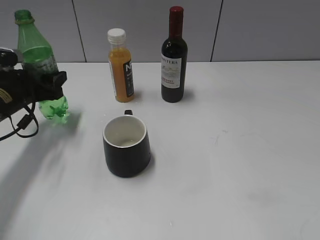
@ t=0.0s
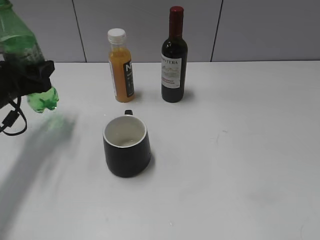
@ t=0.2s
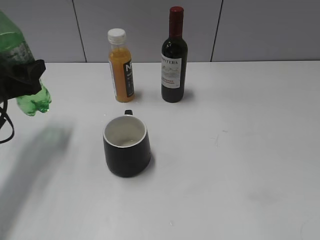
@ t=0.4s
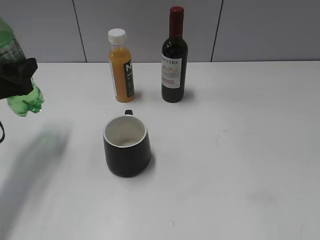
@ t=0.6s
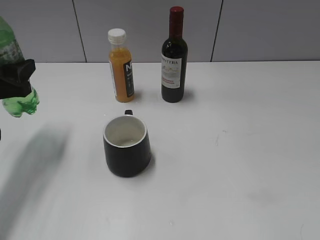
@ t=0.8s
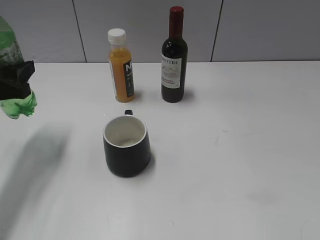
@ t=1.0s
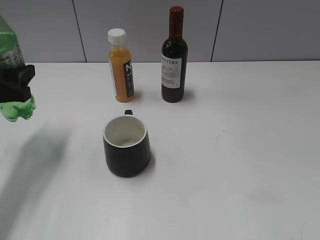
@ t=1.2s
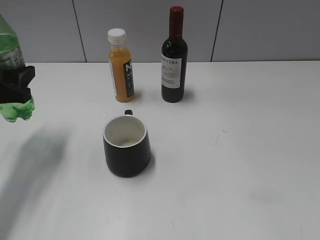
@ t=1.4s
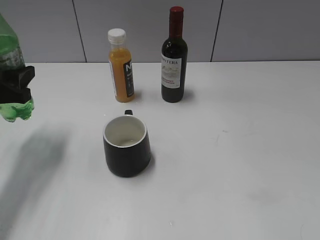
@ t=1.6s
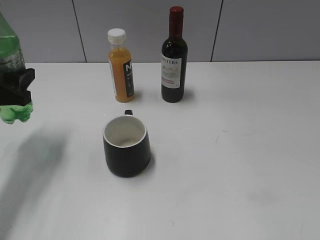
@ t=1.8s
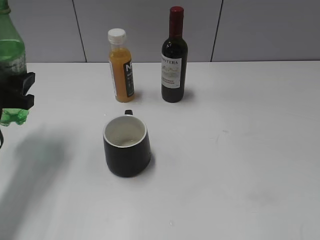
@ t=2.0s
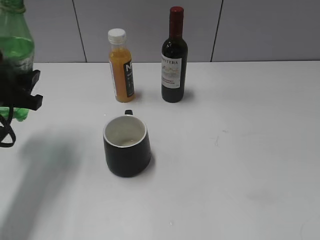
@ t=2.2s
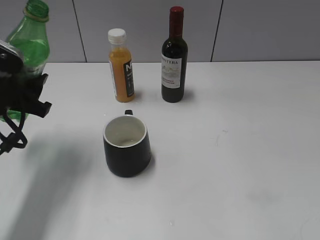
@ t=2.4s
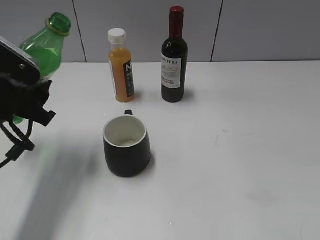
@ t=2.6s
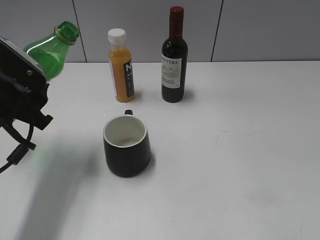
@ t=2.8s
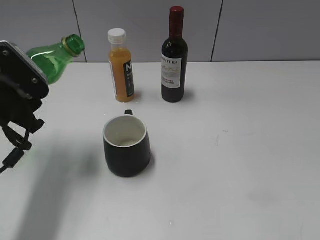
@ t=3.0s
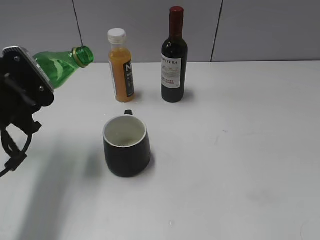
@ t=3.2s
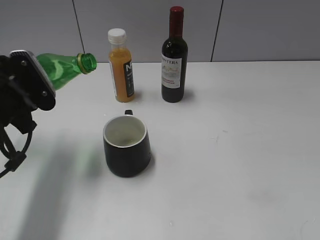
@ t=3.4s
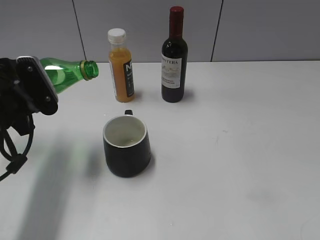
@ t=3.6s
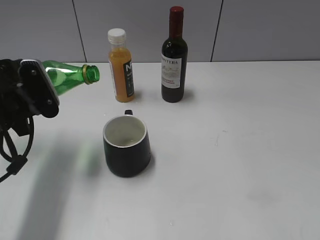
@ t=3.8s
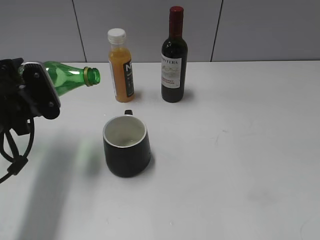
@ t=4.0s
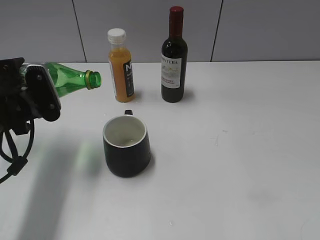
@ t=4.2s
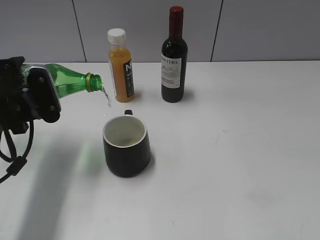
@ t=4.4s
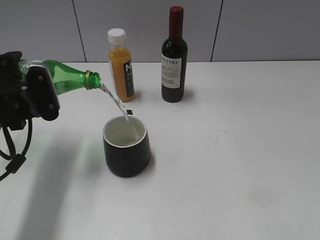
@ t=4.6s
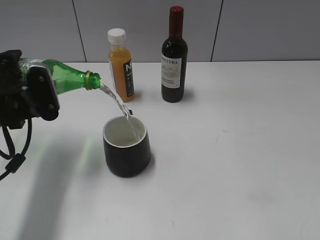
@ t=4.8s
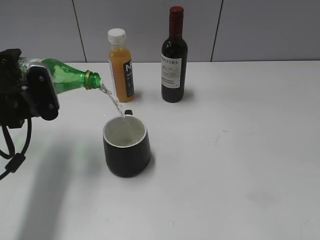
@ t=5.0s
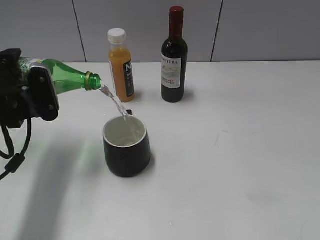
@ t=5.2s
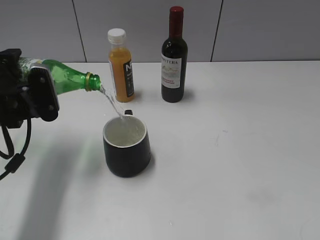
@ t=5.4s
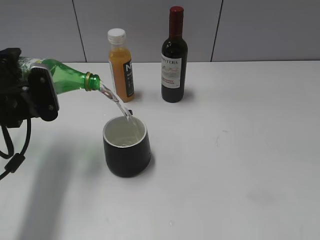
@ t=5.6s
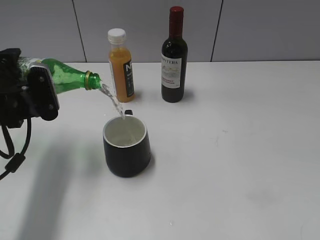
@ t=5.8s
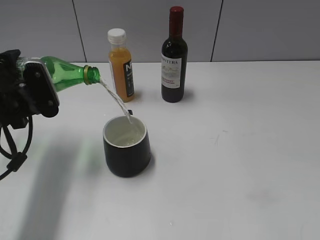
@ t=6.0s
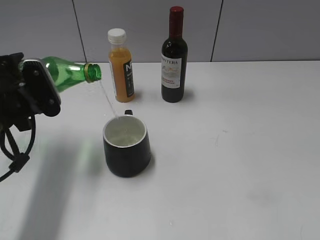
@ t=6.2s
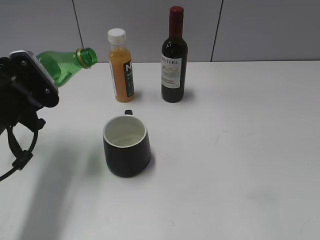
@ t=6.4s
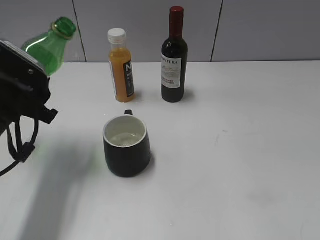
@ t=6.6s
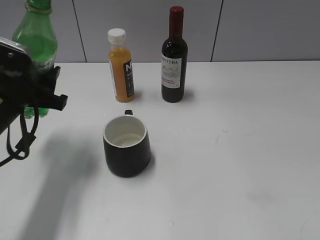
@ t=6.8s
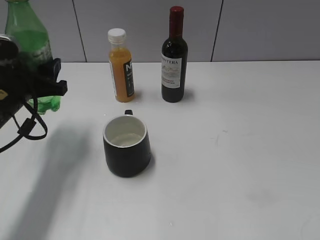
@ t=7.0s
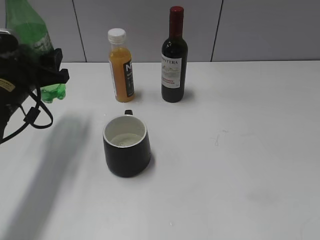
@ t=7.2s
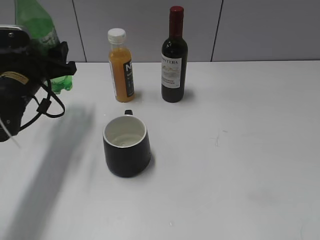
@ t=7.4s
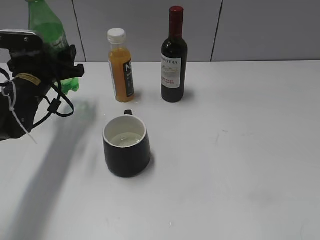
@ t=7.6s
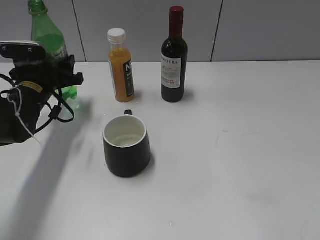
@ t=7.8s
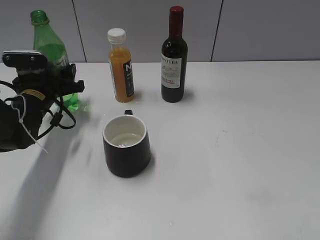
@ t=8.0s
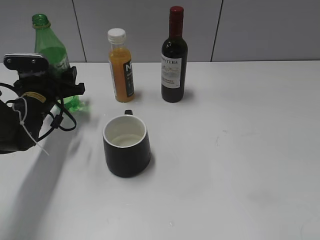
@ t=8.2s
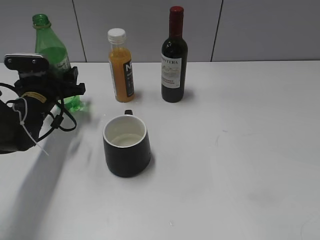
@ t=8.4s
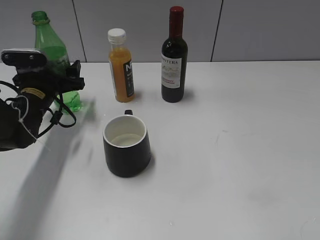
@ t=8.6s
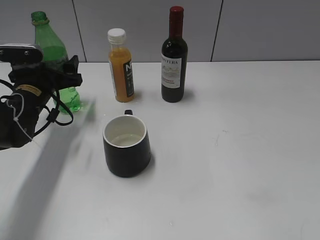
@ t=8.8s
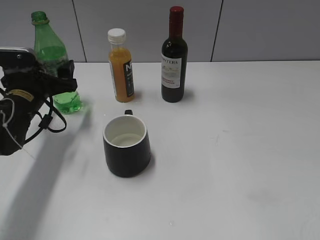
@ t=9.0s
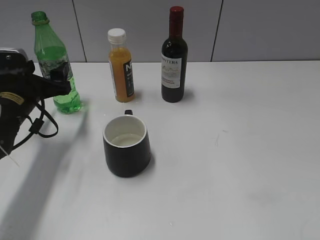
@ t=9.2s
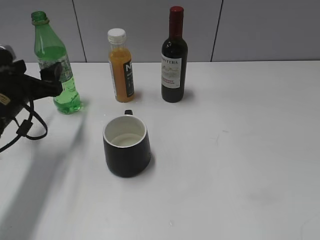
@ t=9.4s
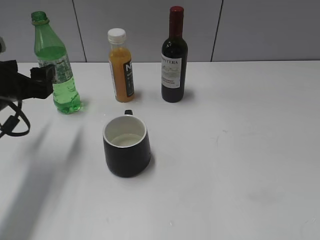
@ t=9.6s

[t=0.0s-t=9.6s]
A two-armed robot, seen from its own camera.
Step, t=0.0s to t=6.4s: Pour the sprite from bottle to cup with left gripper.
Step, t=6.6s to t=9.2s: Place the sprite bottle on the table with left gripper.
t=0.0s to t=1.6s: The left gripper moves backward and upward, approximately 10 cm.
t=1.6s to t=3.2s: The left gripper shifts some 5 cm to the right.
t=6.4s to t=8.0s: The left gripper goes roughly 15 cm forward and downward.
t=8.0s to t=9.6s: The left gripper goes some 10 cm backward and upward, and opens up.

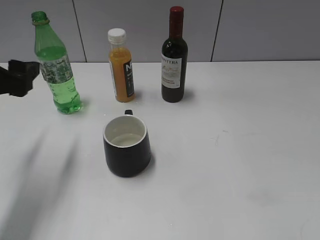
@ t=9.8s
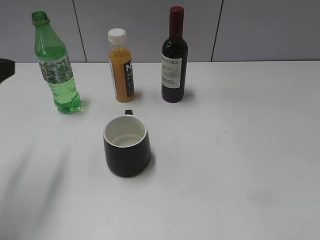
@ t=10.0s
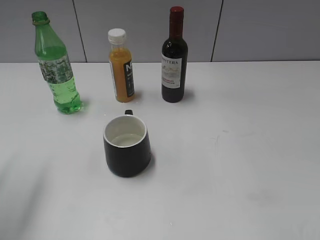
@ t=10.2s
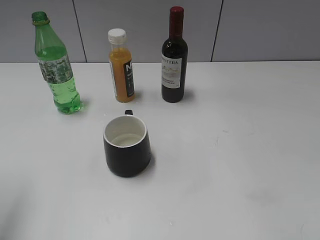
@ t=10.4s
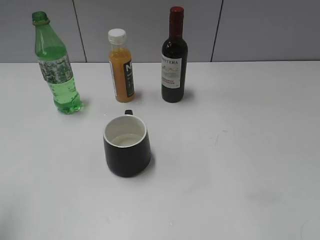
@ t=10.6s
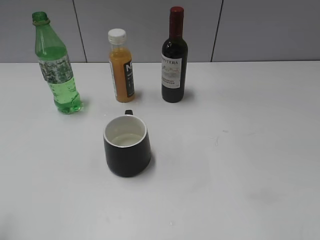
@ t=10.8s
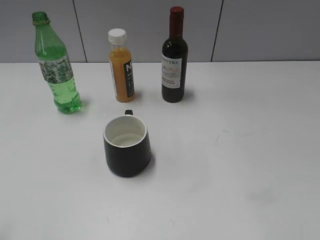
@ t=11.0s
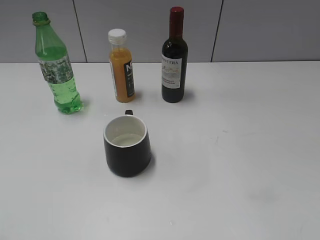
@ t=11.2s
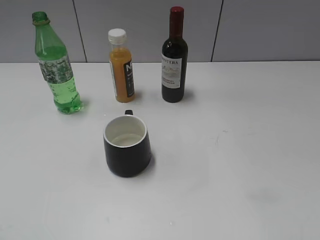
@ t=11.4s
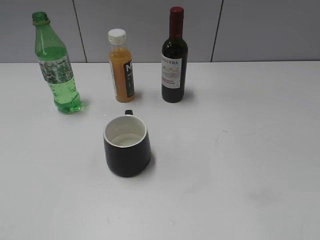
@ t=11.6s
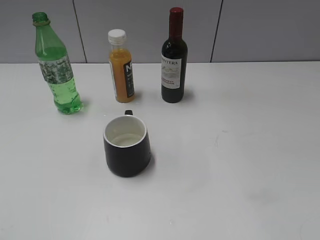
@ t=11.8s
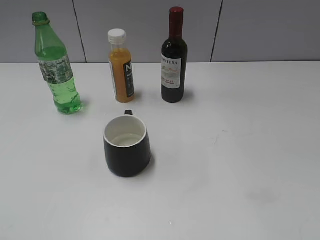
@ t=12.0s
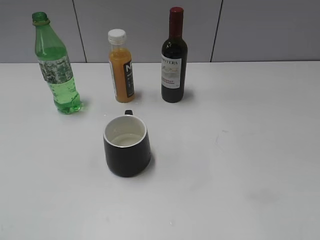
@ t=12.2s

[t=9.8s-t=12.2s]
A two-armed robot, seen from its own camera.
t=9.8s to t=11.0s: The left gripper goes about 20 cm backward and upward.

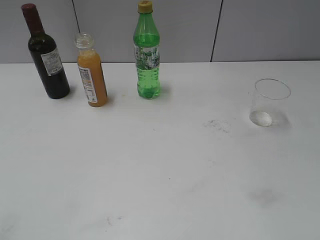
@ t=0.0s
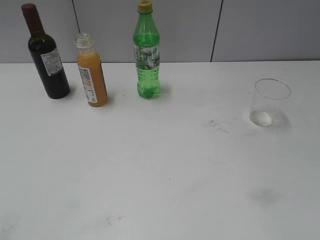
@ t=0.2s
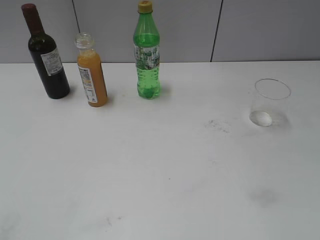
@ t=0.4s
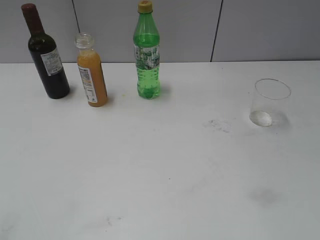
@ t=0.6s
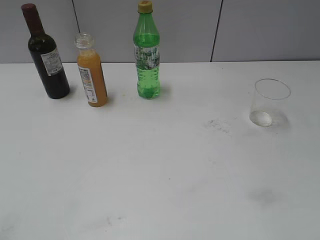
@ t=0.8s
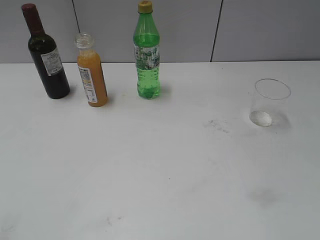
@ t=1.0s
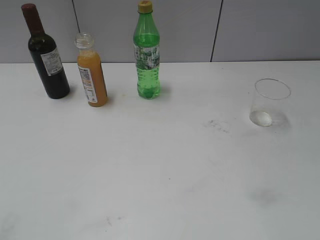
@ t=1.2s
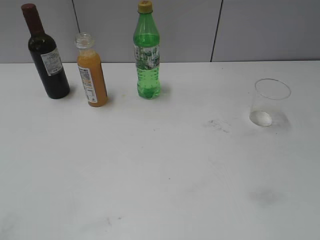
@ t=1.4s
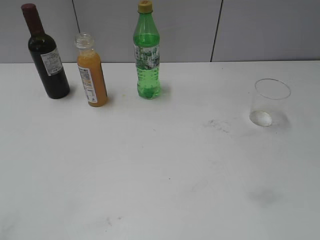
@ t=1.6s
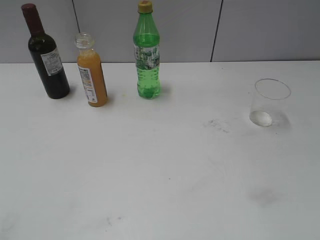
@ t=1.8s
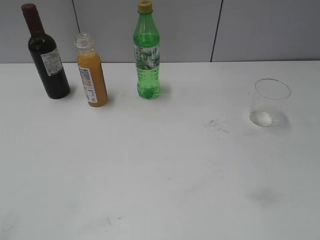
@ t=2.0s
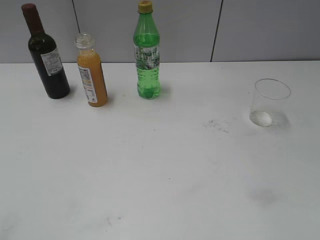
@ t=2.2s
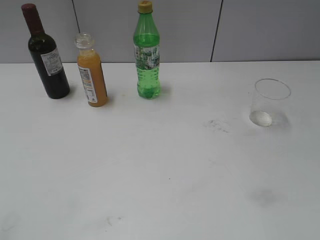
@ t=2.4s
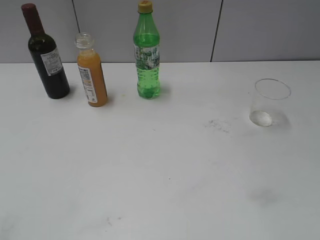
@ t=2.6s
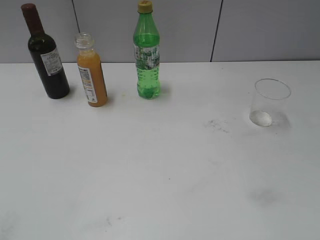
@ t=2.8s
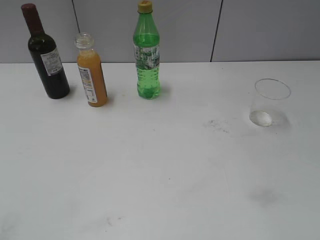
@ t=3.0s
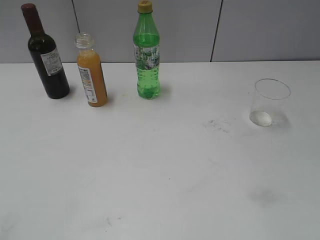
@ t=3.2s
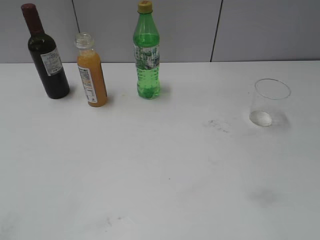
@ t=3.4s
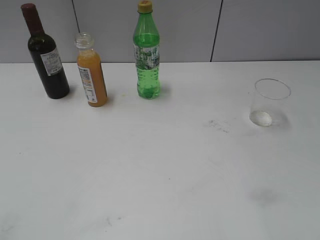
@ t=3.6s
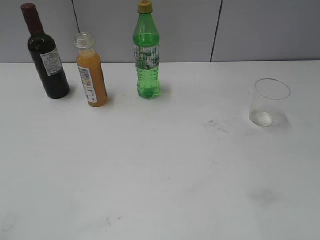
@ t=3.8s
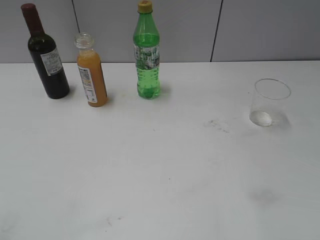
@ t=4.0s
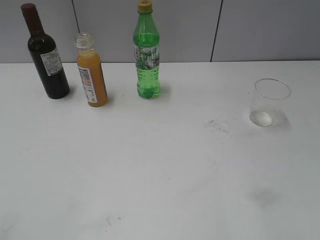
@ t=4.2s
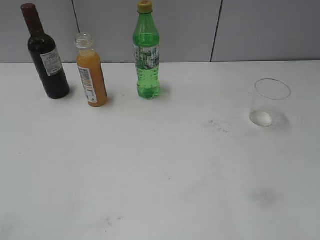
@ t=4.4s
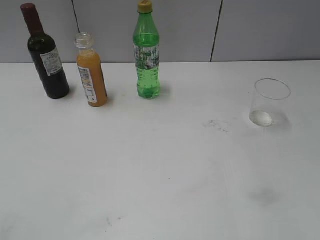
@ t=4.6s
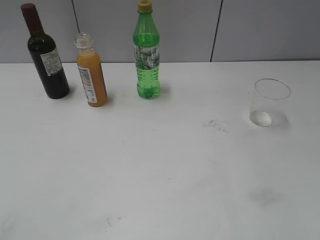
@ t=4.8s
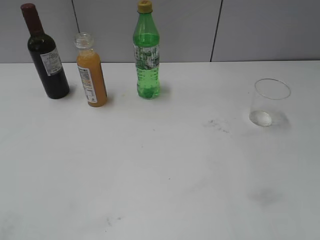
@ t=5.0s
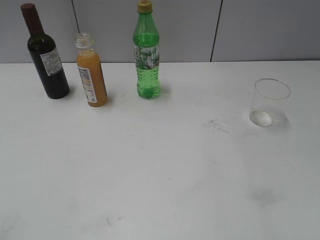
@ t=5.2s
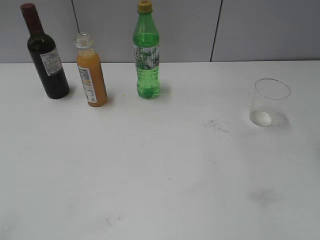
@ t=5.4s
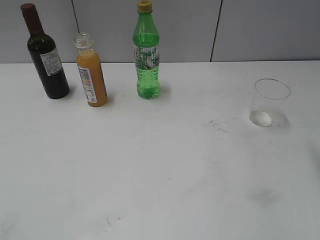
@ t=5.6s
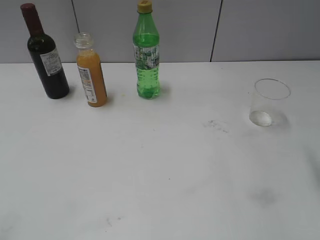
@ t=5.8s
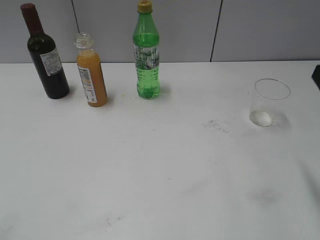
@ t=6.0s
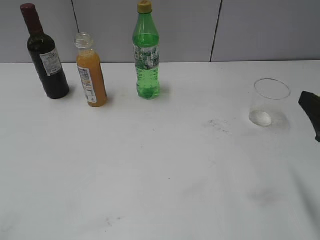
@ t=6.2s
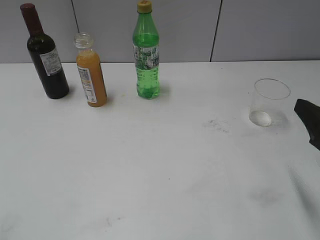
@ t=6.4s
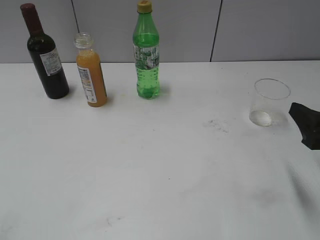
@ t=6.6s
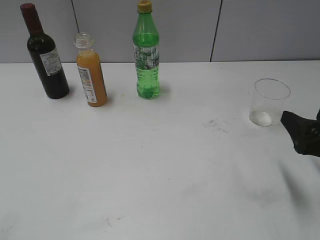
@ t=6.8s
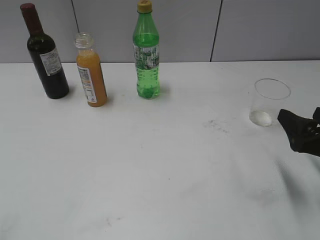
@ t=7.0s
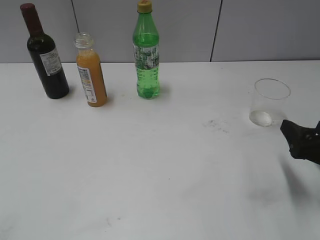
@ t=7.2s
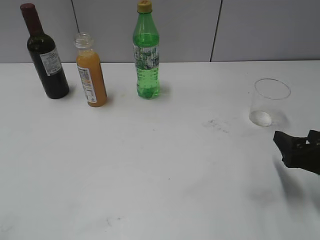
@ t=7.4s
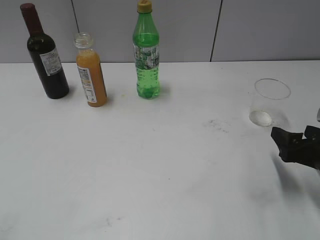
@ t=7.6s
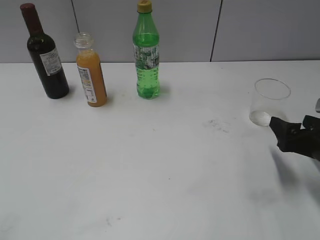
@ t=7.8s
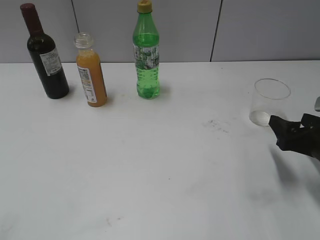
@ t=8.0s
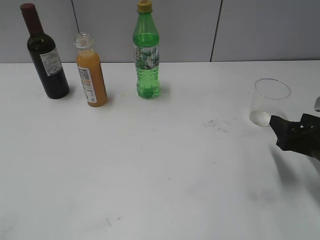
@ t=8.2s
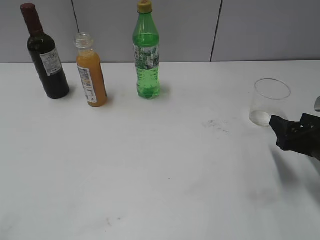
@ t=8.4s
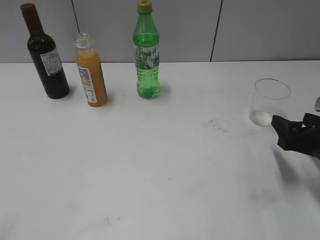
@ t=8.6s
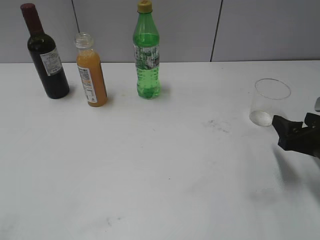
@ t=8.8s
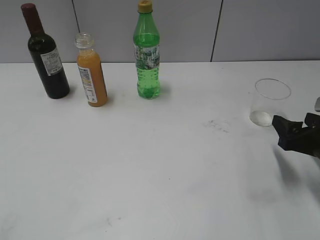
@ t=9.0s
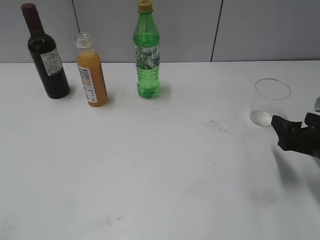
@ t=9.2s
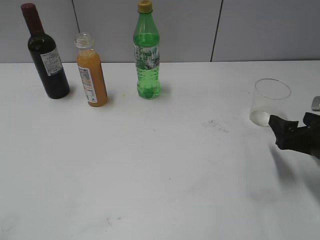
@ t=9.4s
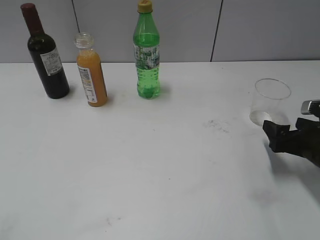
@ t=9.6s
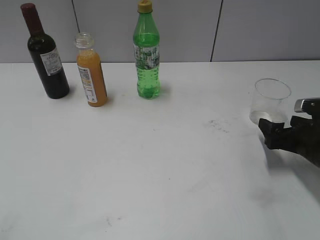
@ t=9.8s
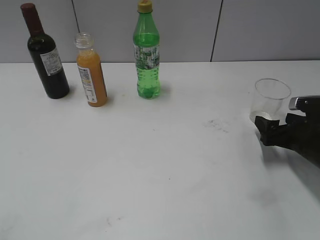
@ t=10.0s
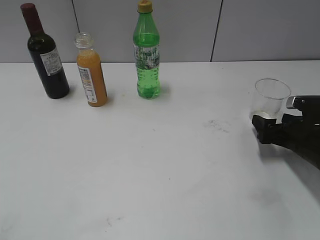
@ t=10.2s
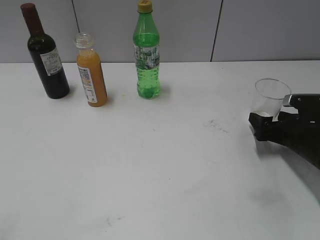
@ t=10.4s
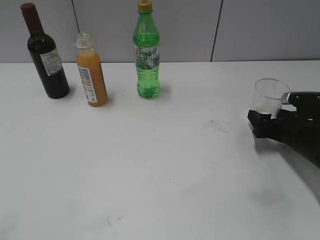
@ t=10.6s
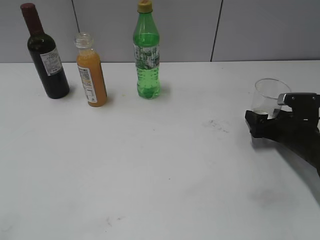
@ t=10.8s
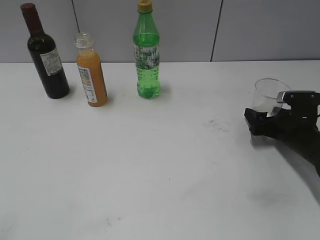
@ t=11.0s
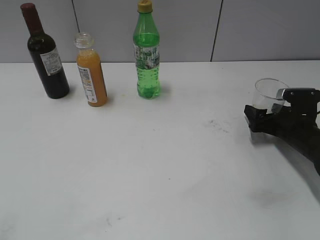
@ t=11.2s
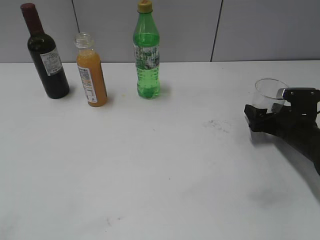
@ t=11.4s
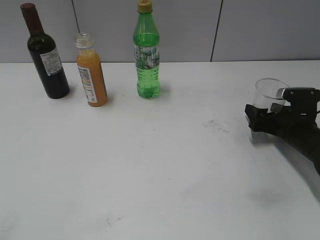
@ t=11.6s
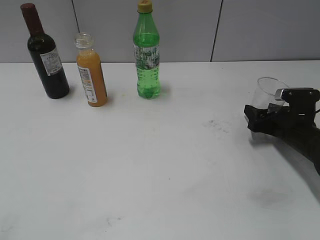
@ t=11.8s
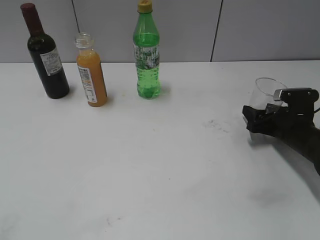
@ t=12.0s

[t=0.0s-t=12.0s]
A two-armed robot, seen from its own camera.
Step, t=6.0s to t=11.8s: Grasp the transparent cup with right gripper.
t=1.6s to t=3.0s: Both grippers stay about where they are.
t=6.0s to t=7.6s: The right gripper heads downward, covering about 10 cm.
t=7.6s to t=9.0s: The grippers make only small movements.
t=9.0s to t=10.4s: The right gripper moves forward and downward, roughly 10 cm, and opens.
t=10.4s to t=12.0s: The right gripper closes up.
